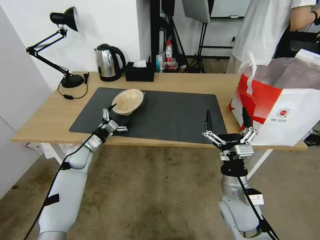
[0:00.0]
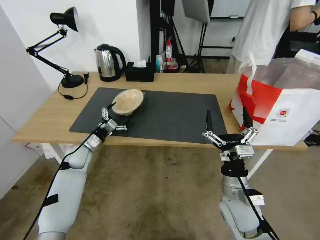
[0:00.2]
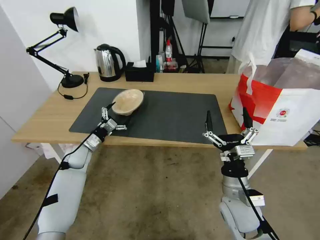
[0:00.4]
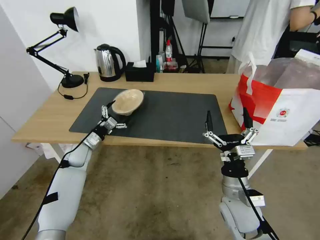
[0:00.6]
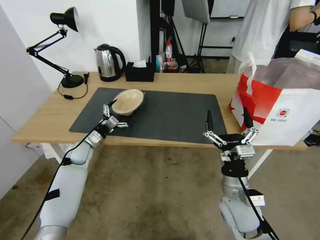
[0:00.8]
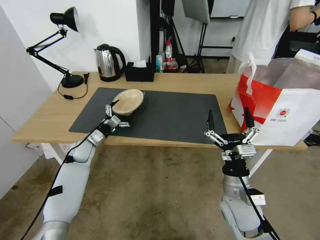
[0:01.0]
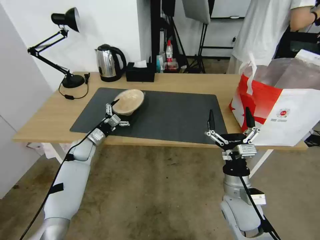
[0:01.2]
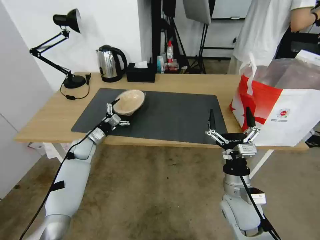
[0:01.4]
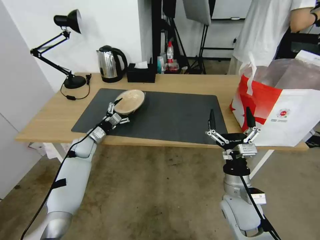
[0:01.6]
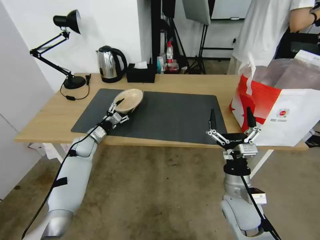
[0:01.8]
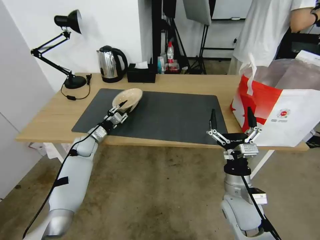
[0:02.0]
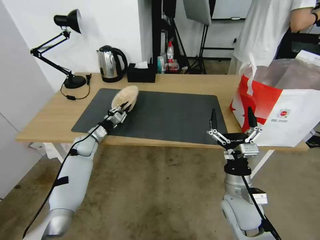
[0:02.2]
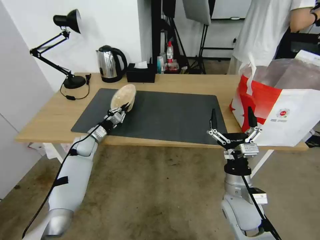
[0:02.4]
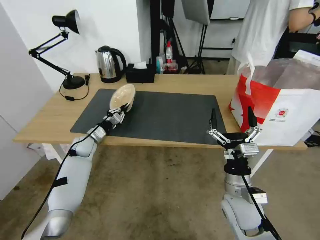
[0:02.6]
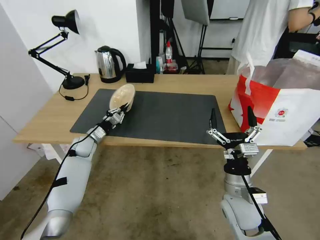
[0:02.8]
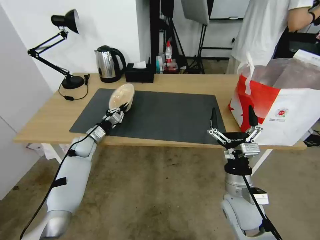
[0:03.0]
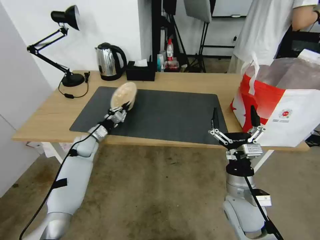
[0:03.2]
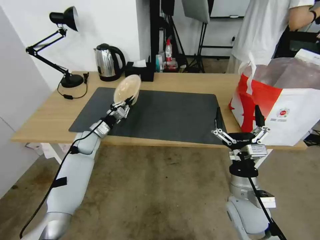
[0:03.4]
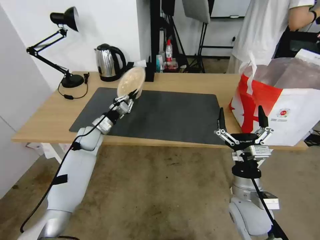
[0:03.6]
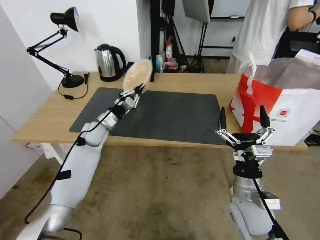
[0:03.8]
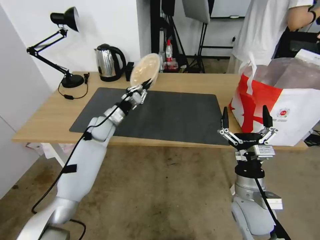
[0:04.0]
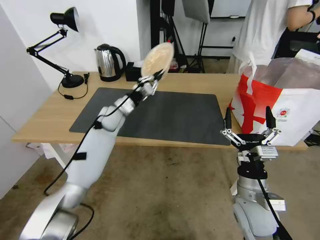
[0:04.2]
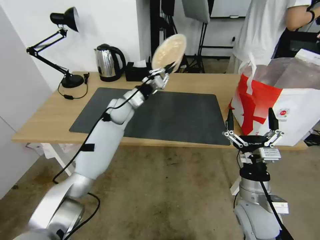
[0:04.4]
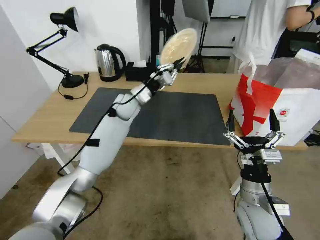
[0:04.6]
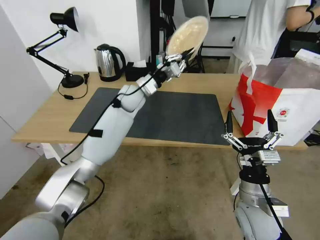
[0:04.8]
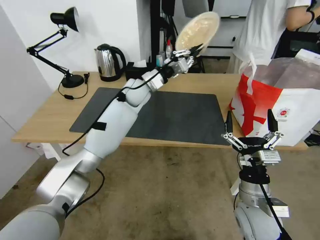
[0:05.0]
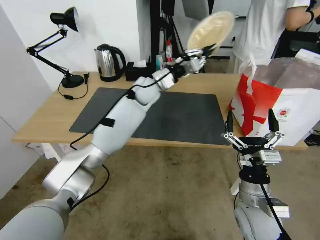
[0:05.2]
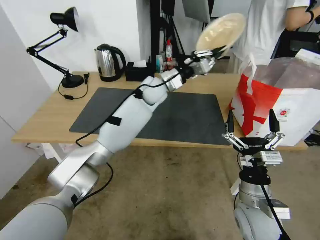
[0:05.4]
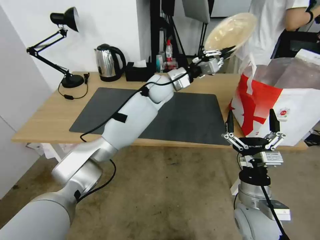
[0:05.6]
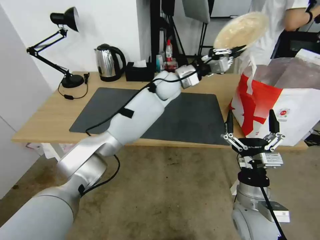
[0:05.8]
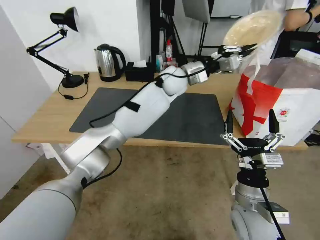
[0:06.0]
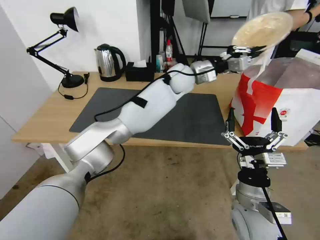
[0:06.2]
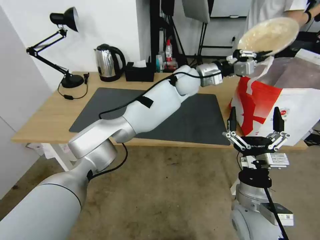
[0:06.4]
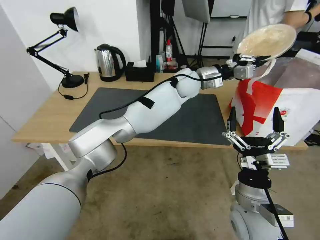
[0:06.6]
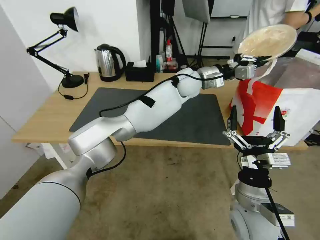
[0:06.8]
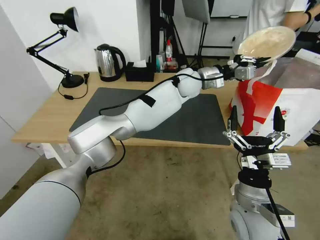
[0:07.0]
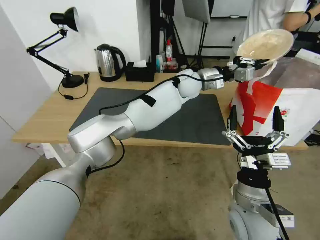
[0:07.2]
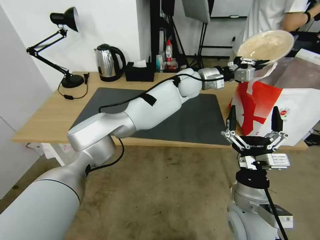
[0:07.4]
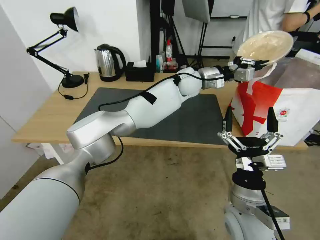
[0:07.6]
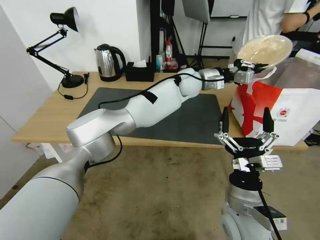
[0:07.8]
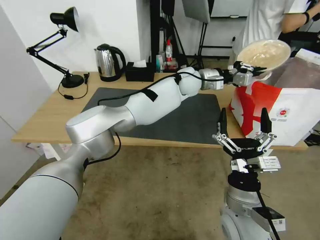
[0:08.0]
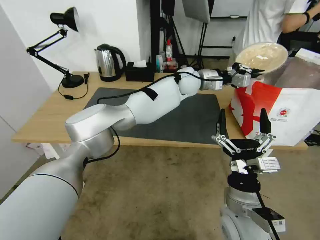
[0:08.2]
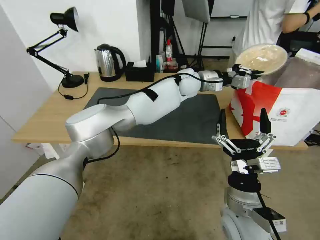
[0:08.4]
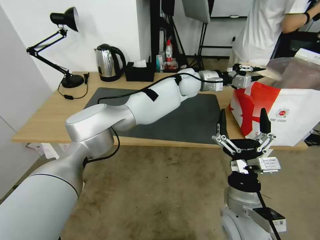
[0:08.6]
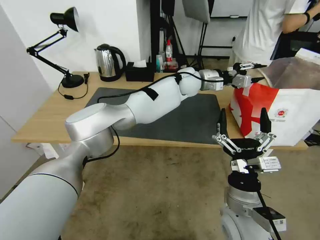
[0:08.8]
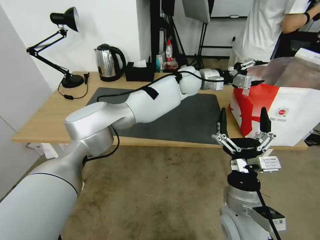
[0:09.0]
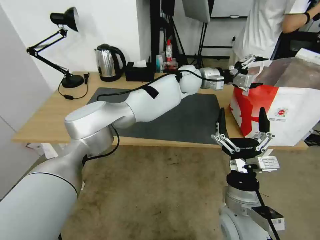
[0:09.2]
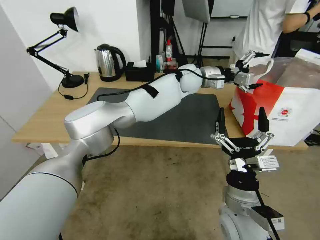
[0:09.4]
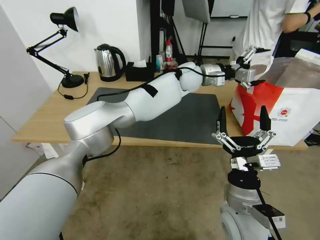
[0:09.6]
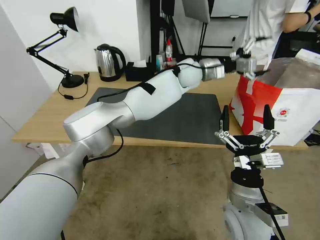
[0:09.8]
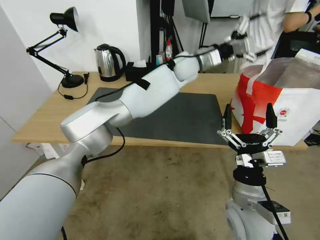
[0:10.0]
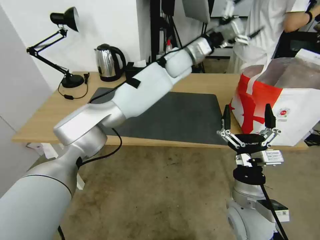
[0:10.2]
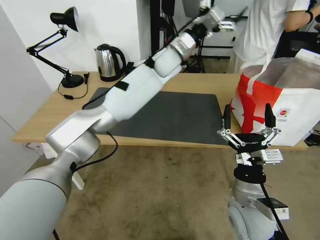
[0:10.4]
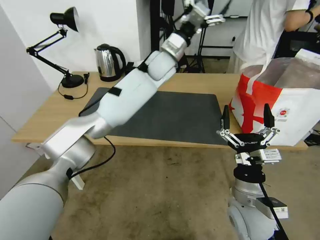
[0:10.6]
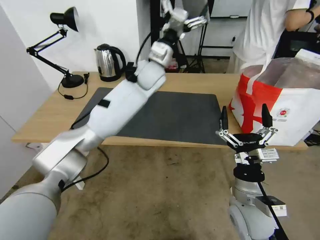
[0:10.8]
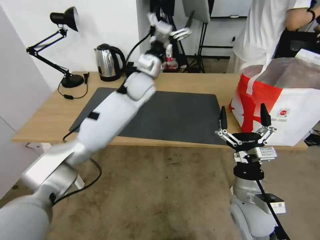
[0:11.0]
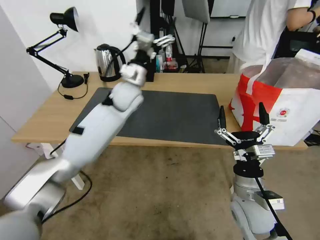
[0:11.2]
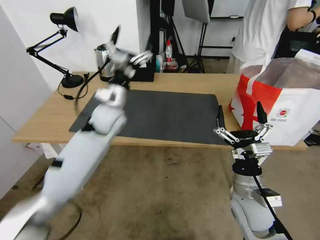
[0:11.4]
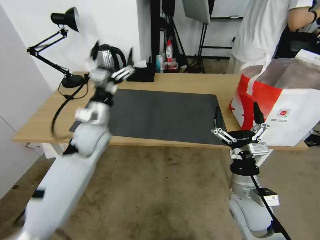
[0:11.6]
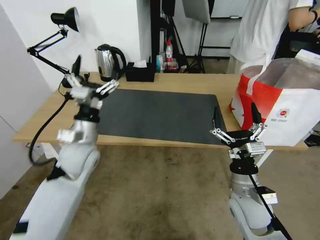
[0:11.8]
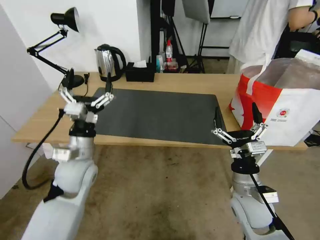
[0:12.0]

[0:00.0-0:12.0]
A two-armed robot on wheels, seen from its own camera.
Task of the whole recording: Pick up the trash from the table and place it into the takeout bag.
0:00.0 to 0:01.6: The grippers make only small movements.
0:01.6 to 0:03.0: The left gripper closes up.
0:03.0 to 0:04.4: The left gripper moves to the right and upward, approximately 25 cm.
0:04.4 to 0:06.0: The left gripper goes approximately 25 cm to the right and upward.
0:06.0 to 0:07.6: The left gripper shifts by approximately 5 cm.
0:07.6 to 0:09.0: The left gripper opens.
0:09.0 to 0:10.4: The left gripper goes about 10 cm to the left and upward, and opens its fingers.
0:10.4 to 0:12.0: The left gripper travels backward, to the left and downward by about 40 cm.

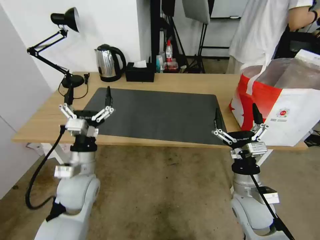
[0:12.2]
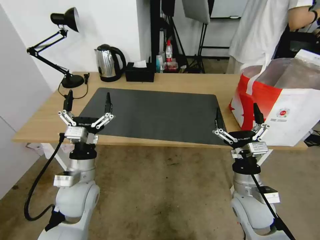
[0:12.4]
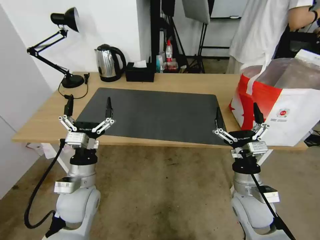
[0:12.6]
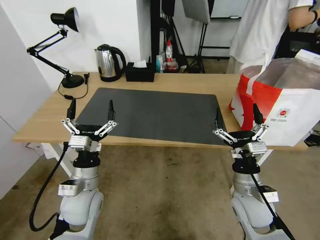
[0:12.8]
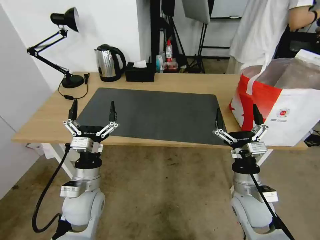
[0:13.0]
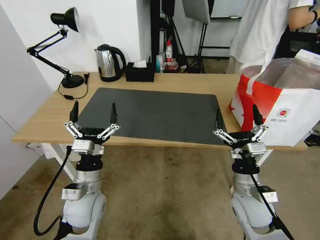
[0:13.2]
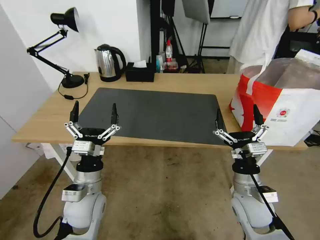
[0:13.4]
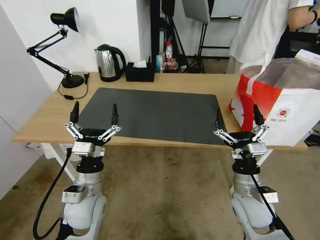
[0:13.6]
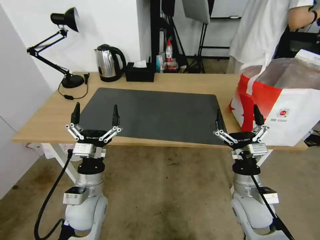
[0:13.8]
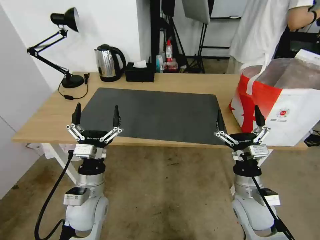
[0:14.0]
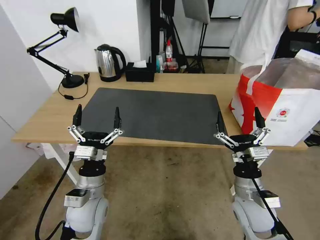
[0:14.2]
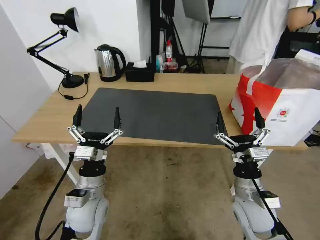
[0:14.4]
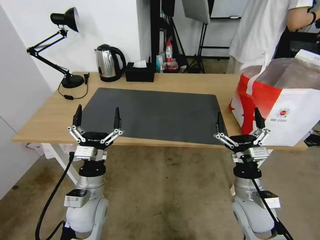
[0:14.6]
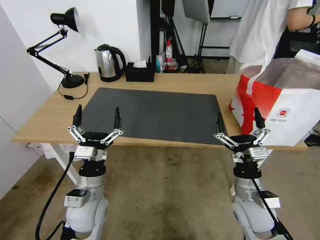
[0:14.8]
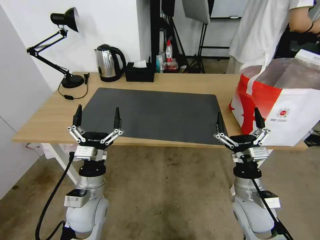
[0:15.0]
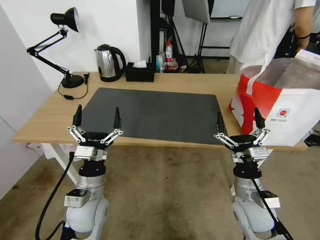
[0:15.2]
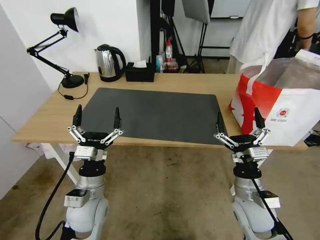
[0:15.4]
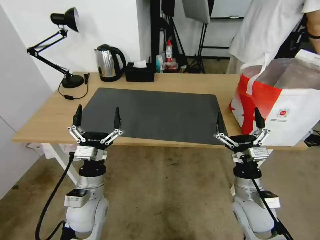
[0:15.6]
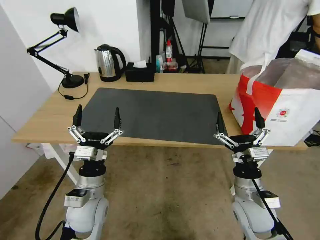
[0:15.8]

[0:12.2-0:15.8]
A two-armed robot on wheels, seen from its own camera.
Task of the whole recording: Pick up the trash from the table and place it into the takeout bag.
0:12.2 to 0:14.0: The left gripper changes place by about 5 cm.
0:14.0 to 0:15.8: Neither gripper changes place.
